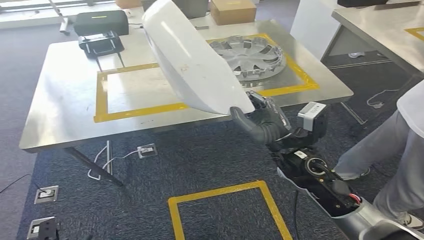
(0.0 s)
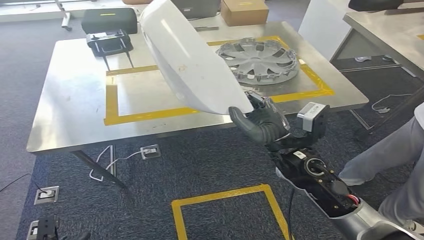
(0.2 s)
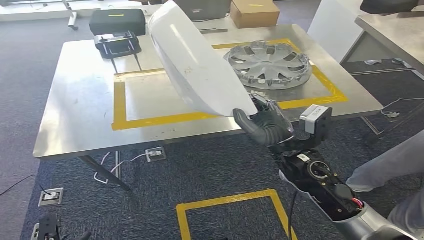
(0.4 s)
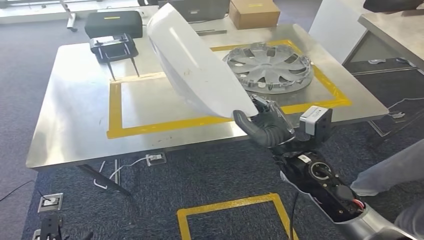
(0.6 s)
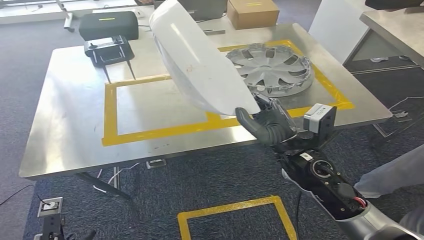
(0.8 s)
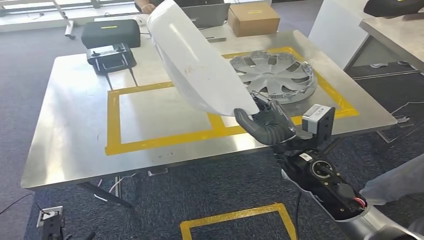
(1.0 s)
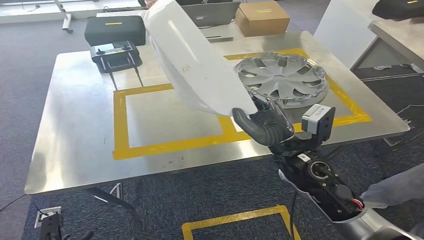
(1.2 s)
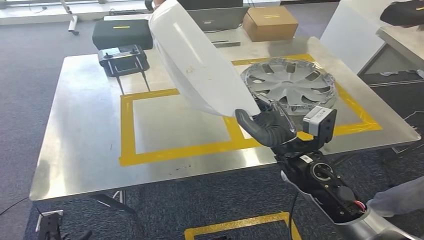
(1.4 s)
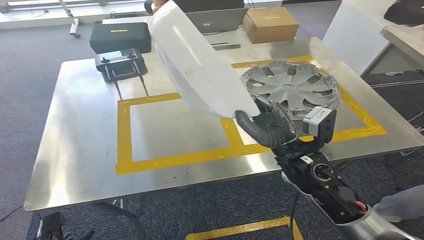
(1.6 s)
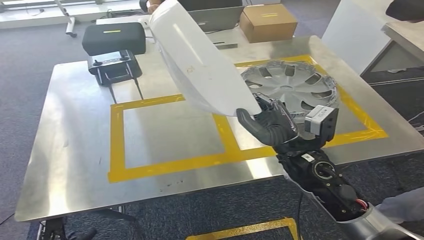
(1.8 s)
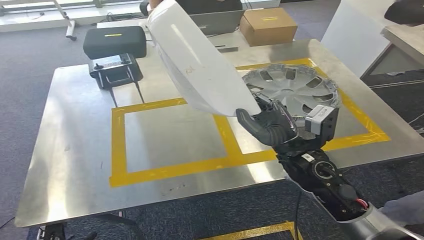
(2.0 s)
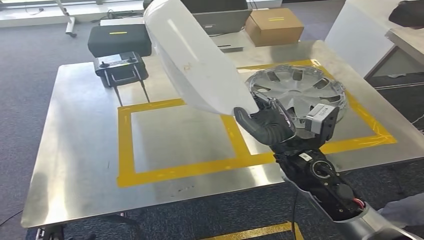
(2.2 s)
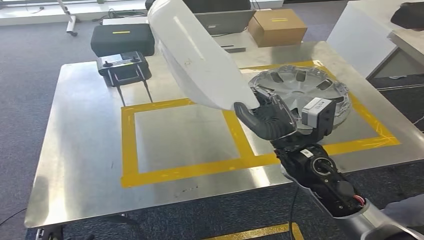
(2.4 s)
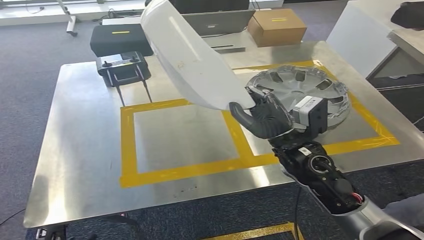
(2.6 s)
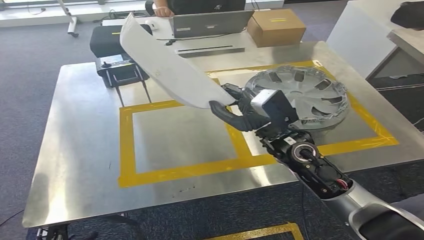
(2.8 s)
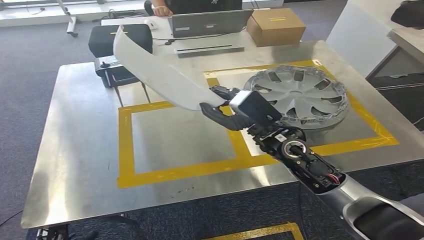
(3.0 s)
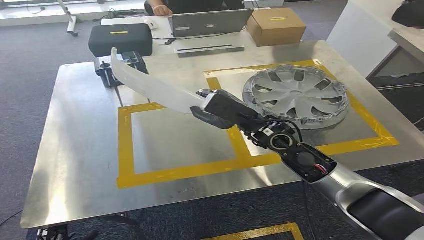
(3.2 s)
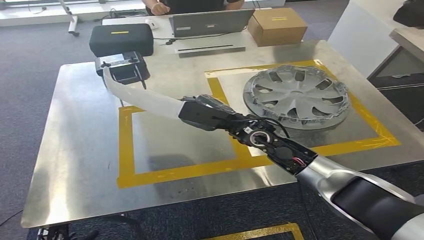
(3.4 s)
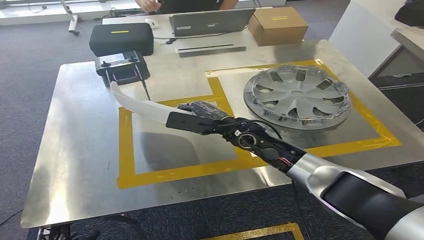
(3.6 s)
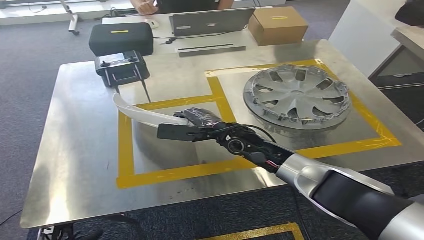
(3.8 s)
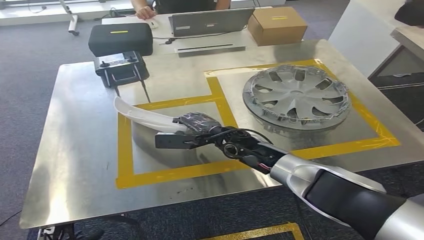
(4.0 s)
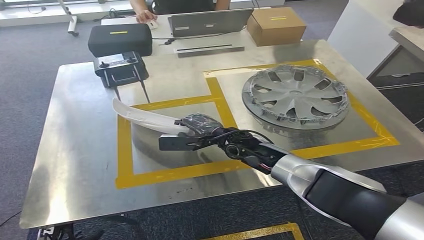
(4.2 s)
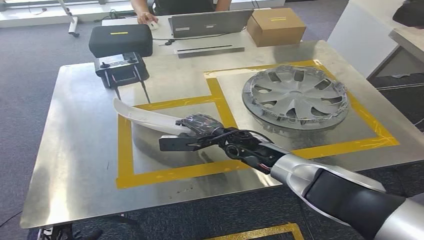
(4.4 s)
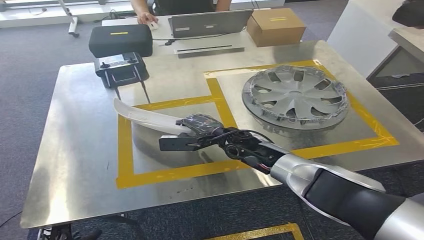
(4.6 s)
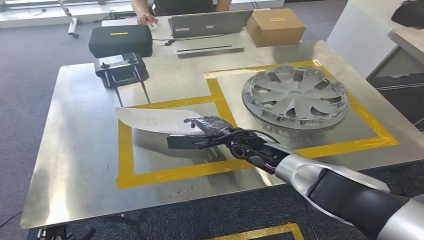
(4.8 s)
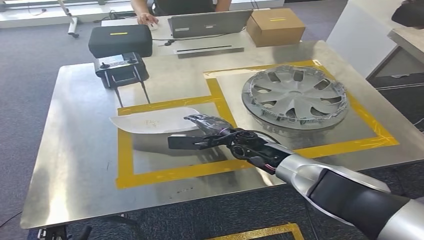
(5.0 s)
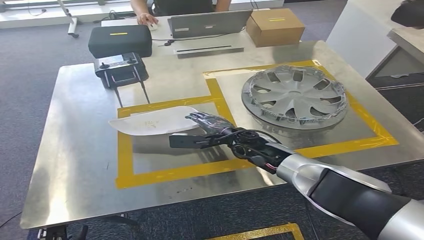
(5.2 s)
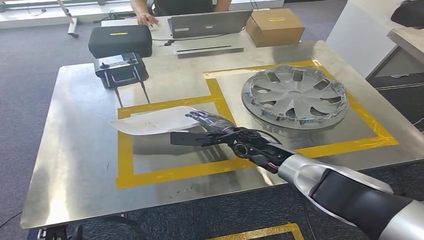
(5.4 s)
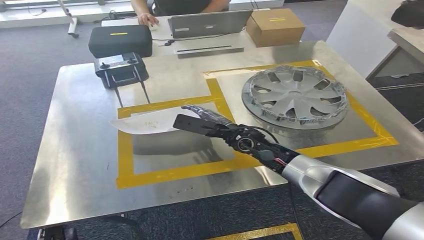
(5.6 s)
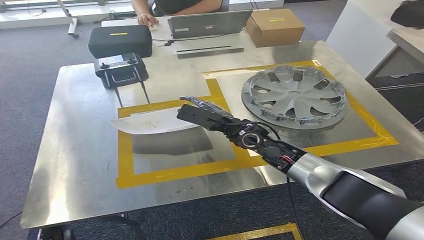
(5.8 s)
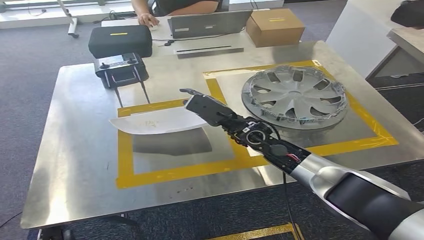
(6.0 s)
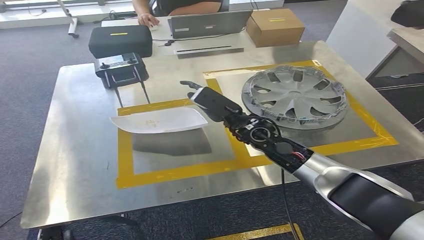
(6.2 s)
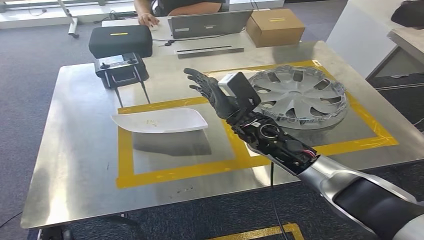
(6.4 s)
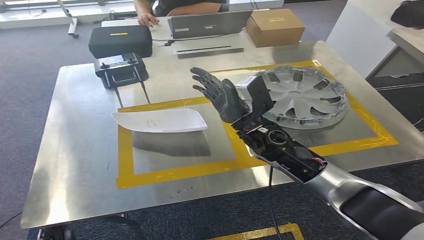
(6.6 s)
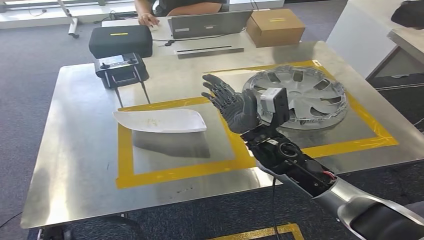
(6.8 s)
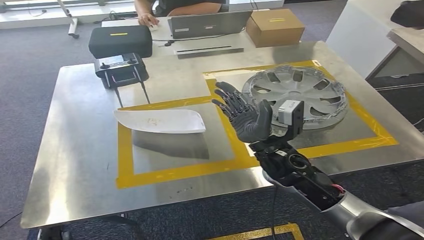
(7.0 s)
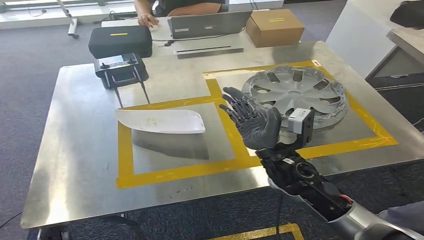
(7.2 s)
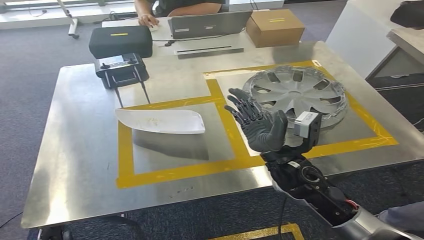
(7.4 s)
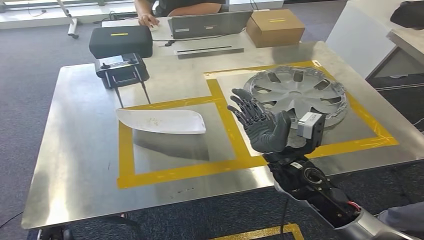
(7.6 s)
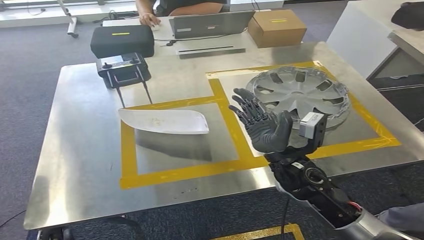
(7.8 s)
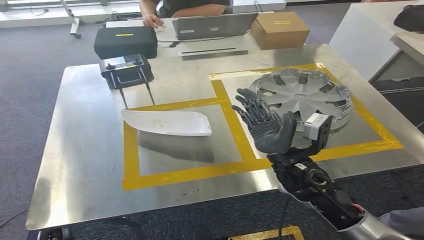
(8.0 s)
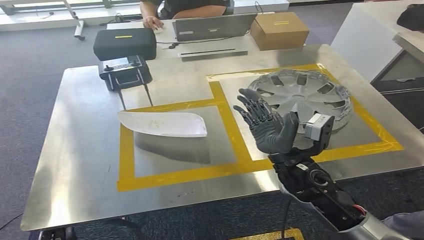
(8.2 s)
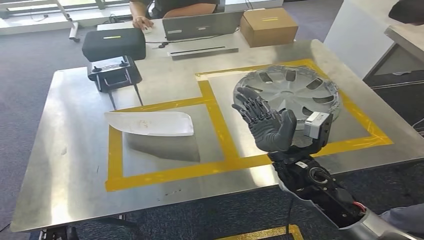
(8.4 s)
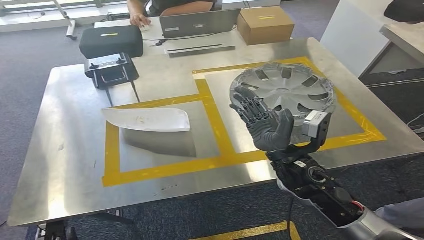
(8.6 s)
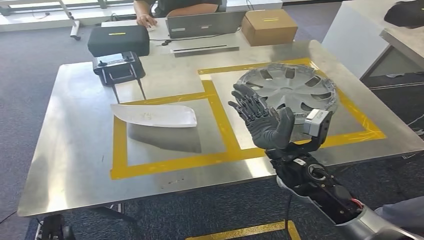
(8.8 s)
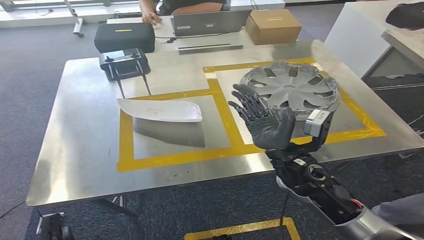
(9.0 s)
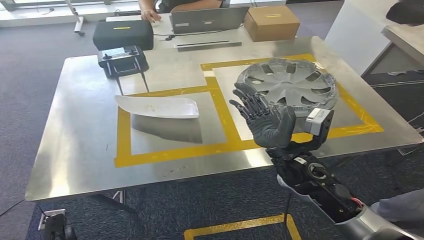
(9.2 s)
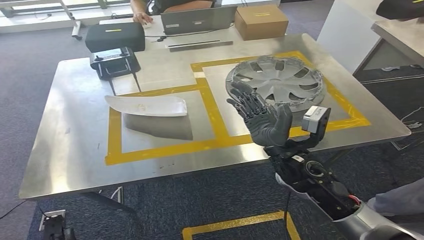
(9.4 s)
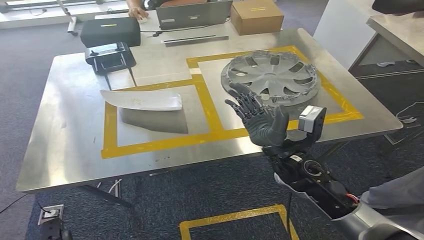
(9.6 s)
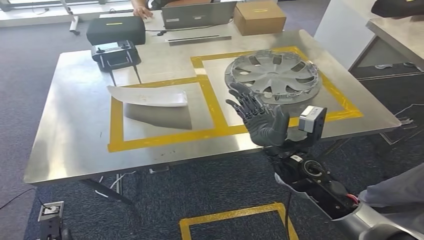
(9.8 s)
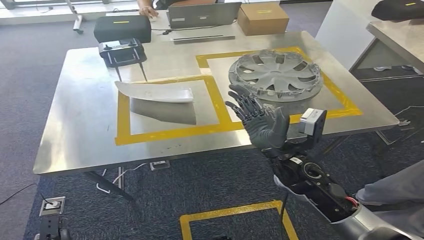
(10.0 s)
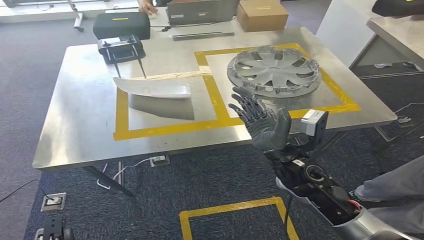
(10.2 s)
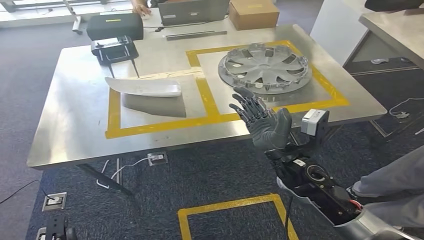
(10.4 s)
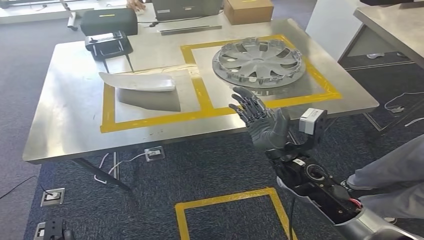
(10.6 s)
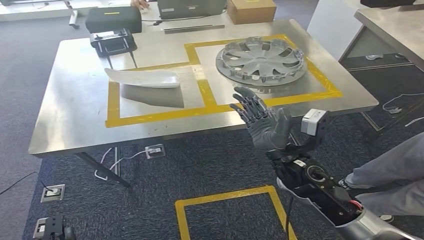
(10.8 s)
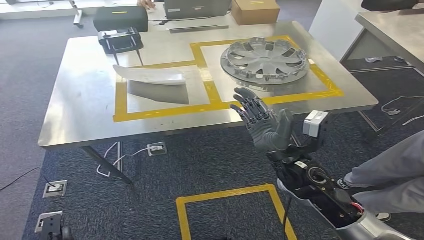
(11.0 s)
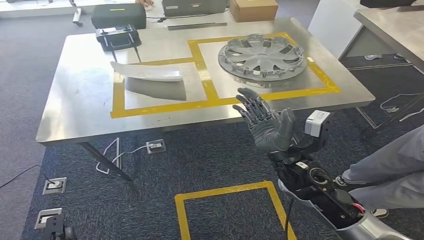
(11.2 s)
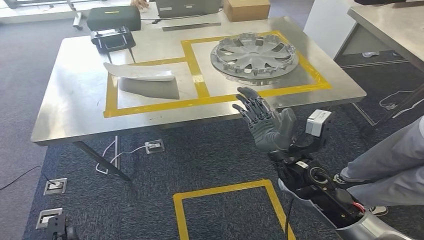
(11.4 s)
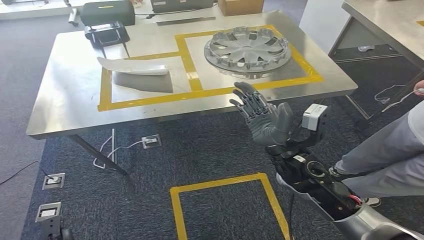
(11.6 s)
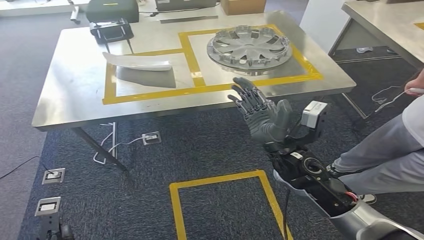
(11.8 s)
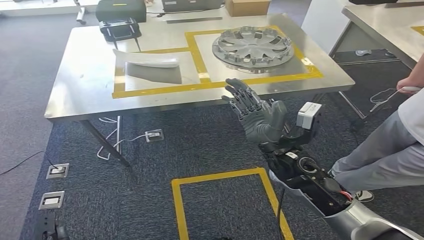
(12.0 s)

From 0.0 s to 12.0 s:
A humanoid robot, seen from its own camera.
Step, from 1.6 s to 7.0 s: Insert the small parts into the corresponding slots on the workbench.
From 3.0 s to 4.4 s: The right hand goes some 15 cm downward, forward and to the left.
From 4.4 s to 6.0 s: The right hand shifts by about 5 cm.
From 6.0 s to 7.6 s: The right hand is displaced backward by about 15 cm.

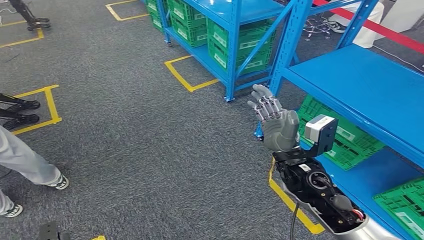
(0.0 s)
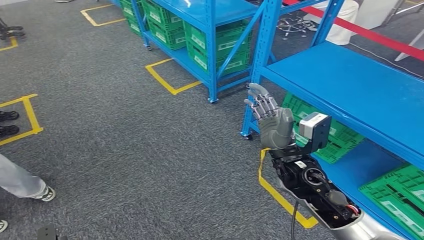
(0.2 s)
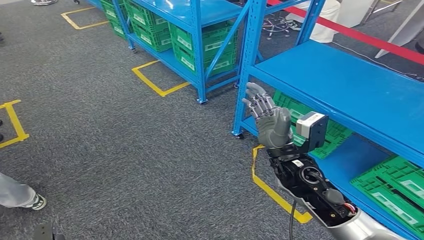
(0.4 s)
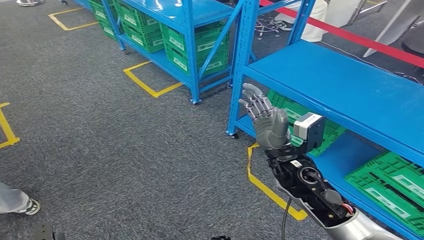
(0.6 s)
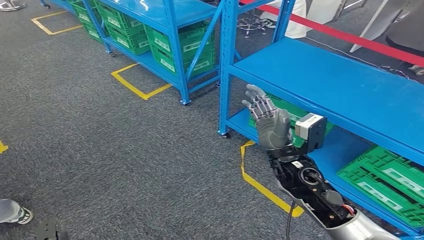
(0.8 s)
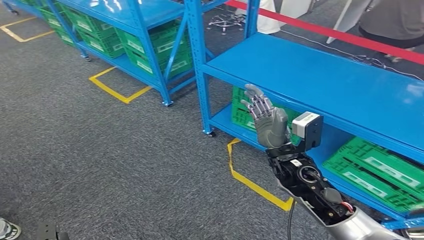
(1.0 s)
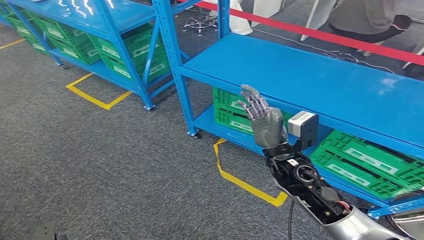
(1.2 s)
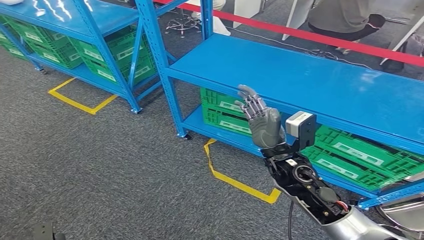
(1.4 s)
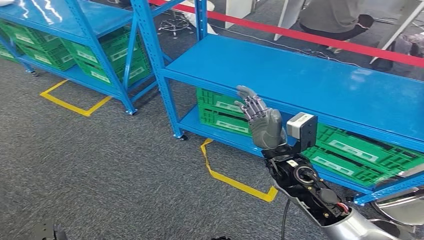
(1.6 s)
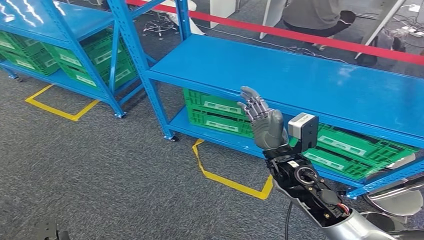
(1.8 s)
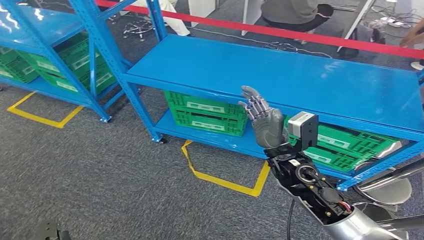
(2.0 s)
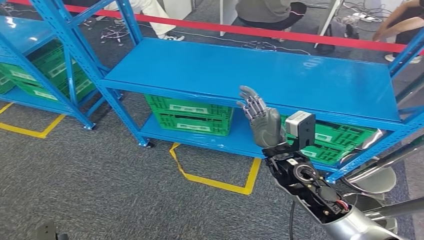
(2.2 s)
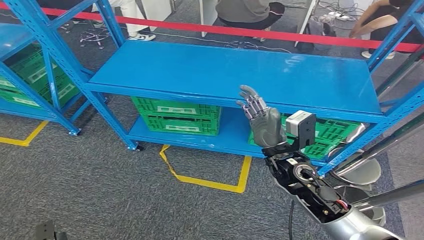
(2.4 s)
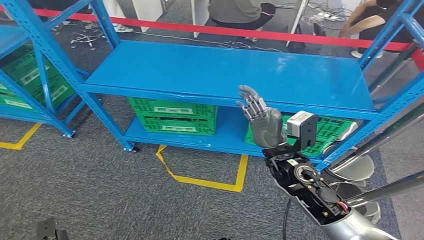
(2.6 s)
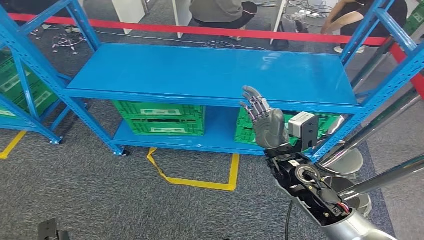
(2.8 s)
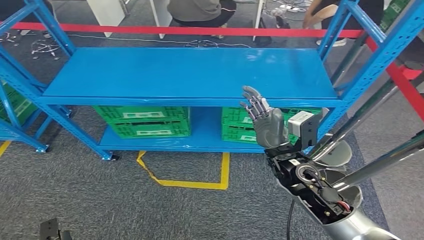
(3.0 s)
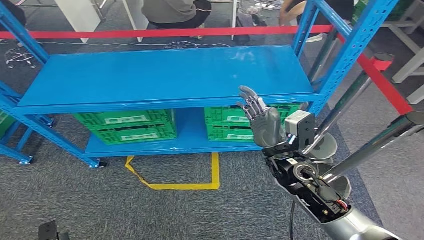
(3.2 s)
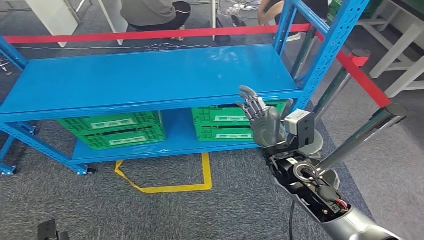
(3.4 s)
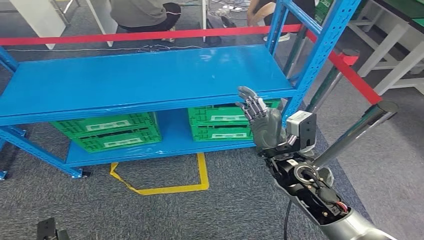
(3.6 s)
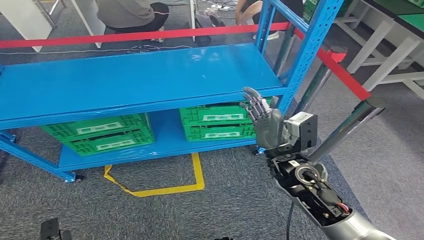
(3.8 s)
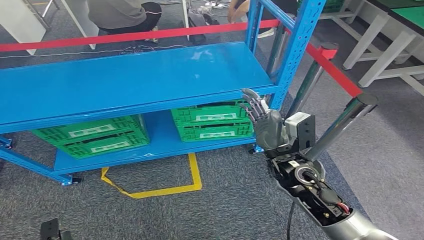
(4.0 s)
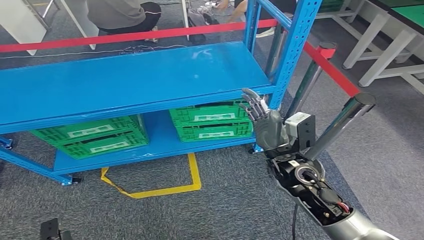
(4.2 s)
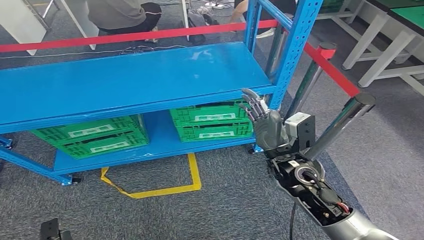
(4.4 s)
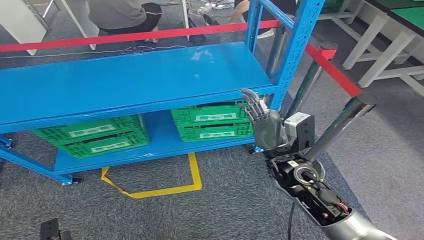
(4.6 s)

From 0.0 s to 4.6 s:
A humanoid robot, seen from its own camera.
Step, from 0.0 s to 4.4 s: Return to the initial position at the workbench.
